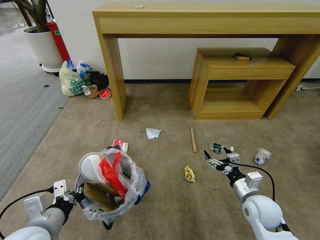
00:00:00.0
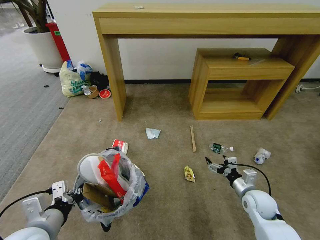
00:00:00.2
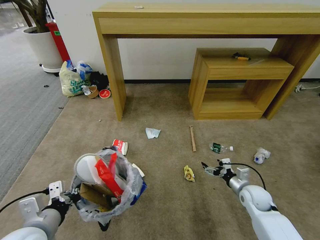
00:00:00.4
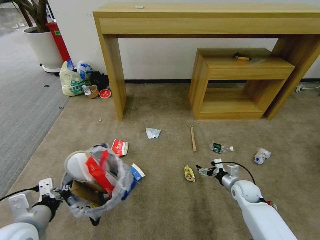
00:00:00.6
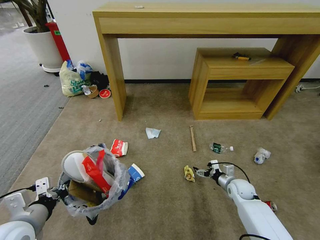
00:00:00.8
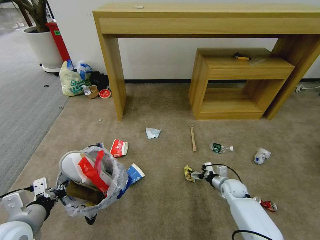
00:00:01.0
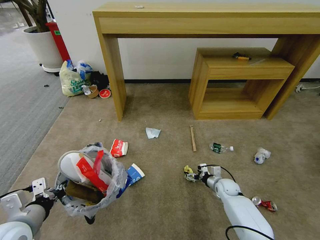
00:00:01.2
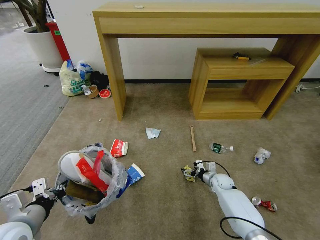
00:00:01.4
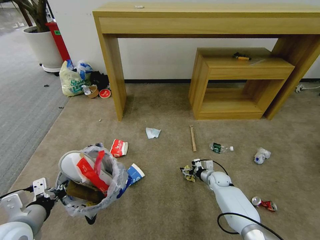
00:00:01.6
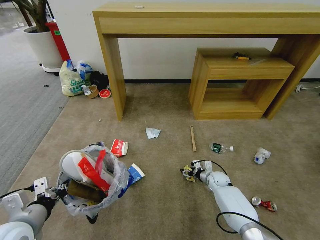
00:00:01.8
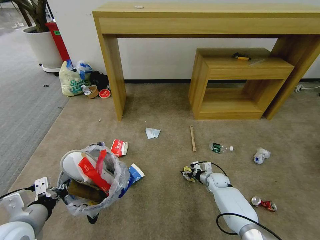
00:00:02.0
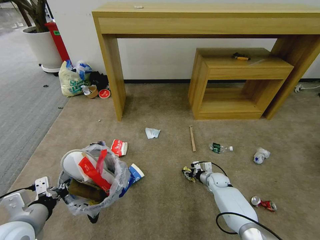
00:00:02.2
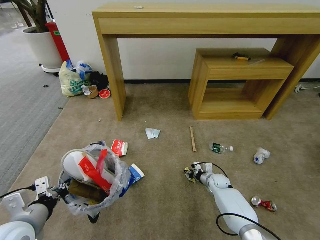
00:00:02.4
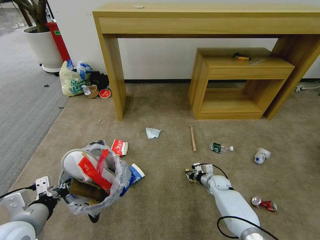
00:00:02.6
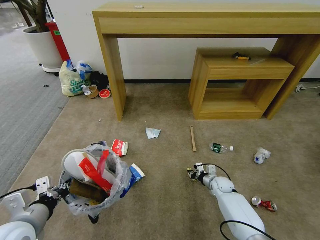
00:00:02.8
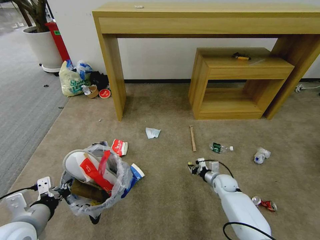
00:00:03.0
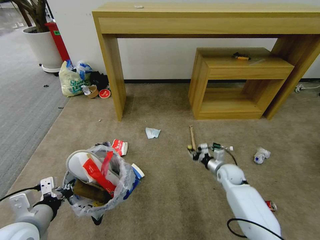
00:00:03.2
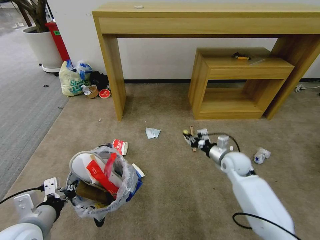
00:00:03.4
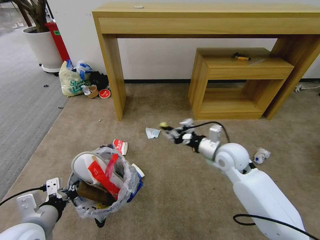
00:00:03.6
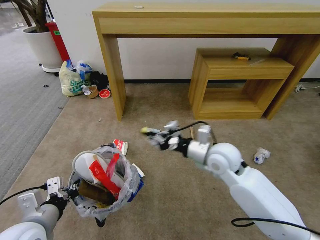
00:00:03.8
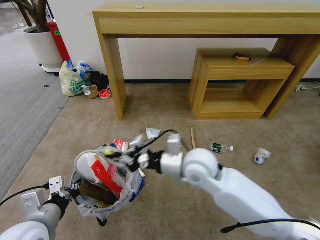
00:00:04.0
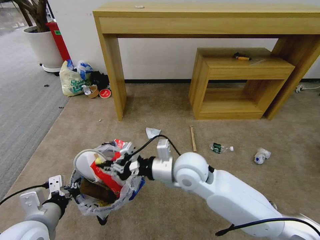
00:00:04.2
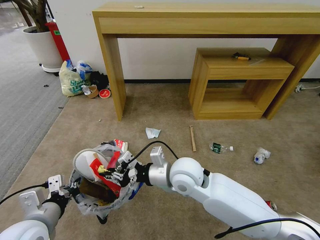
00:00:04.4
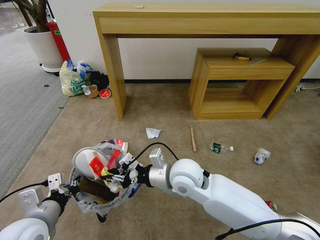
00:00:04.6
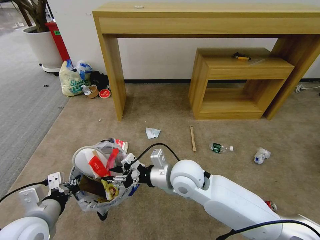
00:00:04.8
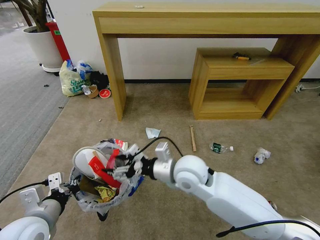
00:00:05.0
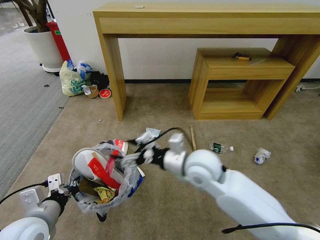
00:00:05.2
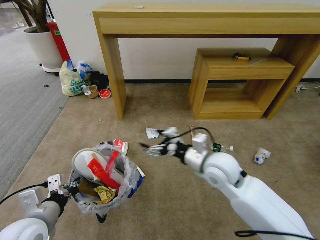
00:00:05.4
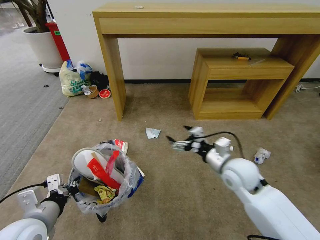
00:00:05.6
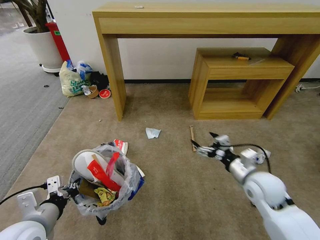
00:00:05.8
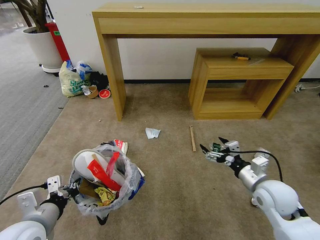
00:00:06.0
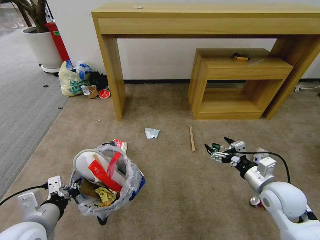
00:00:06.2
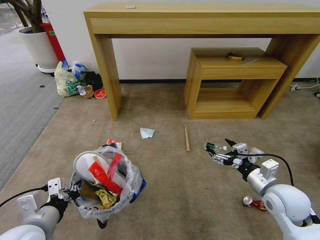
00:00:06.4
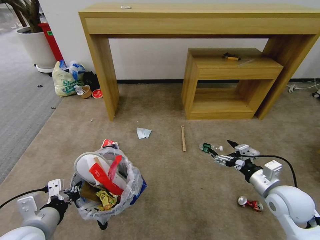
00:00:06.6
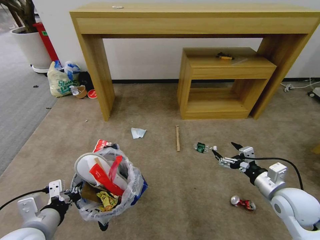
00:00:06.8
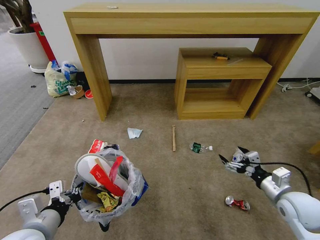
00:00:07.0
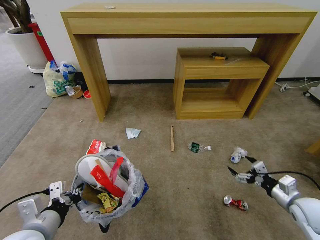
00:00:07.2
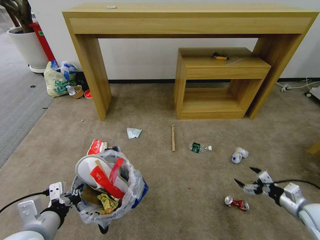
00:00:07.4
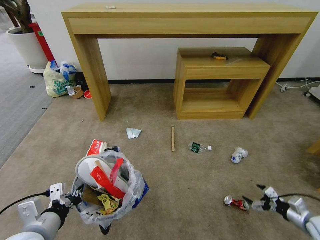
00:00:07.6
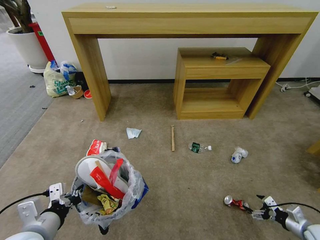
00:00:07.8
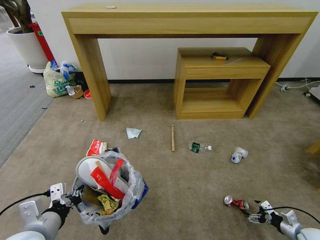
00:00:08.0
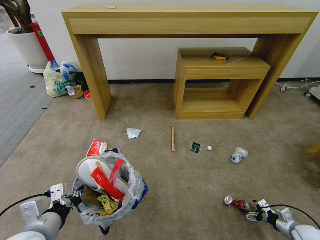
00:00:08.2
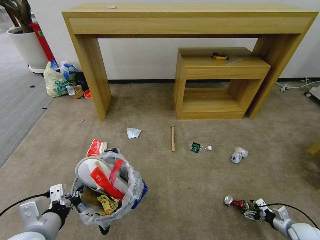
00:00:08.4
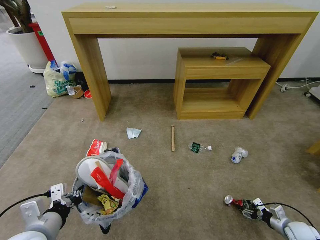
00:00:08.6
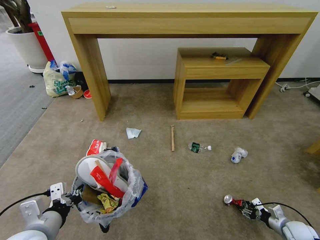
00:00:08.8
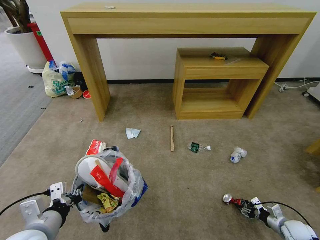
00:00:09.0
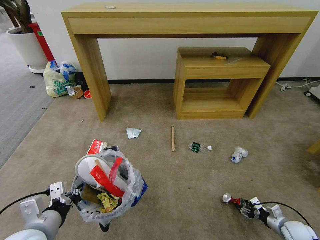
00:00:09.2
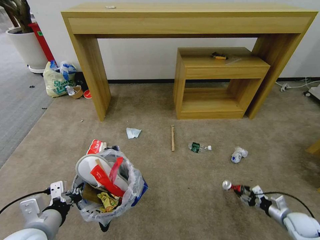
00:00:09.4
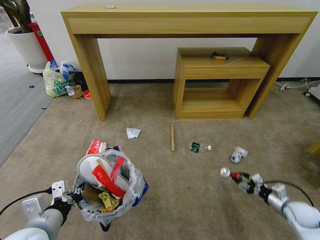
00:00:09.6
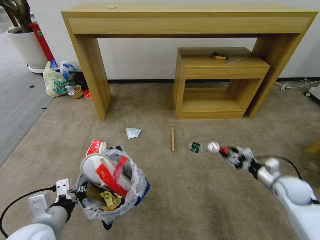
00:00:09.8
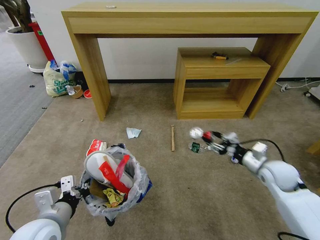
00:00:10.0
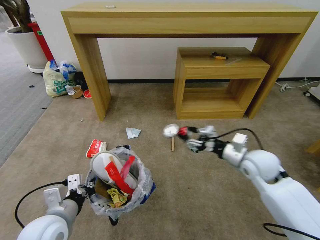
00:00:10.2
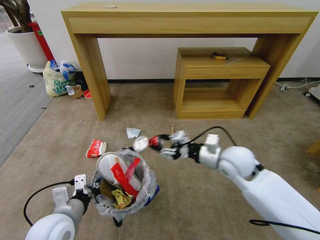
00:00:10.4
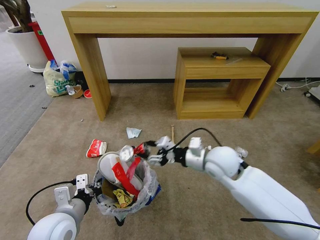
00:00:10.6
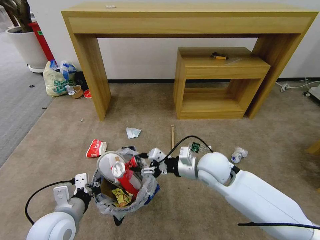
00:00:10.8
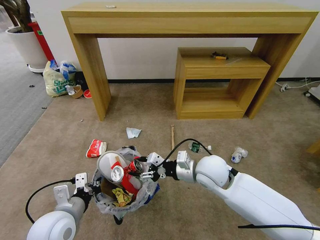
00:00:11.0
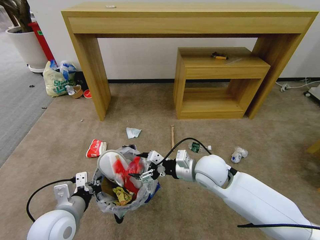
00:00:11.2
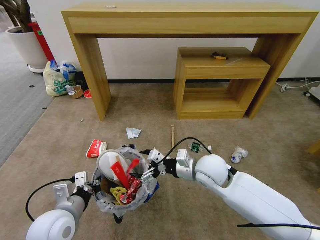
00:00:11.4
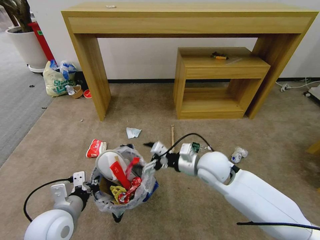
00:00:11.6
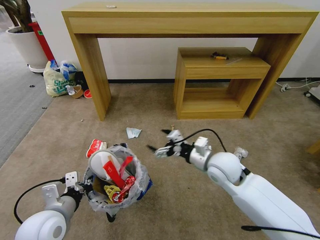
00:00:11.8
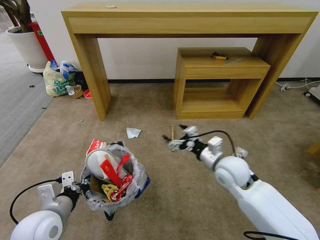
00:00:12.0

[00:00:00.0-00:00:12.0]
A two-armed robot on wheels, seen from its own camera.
Task of the whole recording: Pick up the trash bin and place the garbage on the floor into it.
00:00:00.0 to 00:00:01.6: The left gripper goes approximately 5 cm to the left. Meanwhile the right gripper moves forward and downward, approximately 25 cm.
00:00:01.6 to 00:00:03.0: The right gripper closes.
00:00:03.0 to 00:00:04.4: The right gripper moves upward and to the left, roughly 35 cm.
00:00:04.4 to 00:00:06.0: The right gripper goes approximately 25 cm to the right, and opens its fingers.
00:00:06.0 to 00:00:07.6: The right gripper moves to the right and downward, approximately 25 cm.
00:00:07.6 to 00:00:09.0: The right gripper shifts about 10 cm downward, and closes up.
00:00:09.0 to 00:00:10.4: The right gripper is displaced to the left, upward and forward by some 50 cm, while the left gripper moves approximately 5 cm.
00:00:10.4 to 00:00:12.0: The right gripper goes to the left and returns, about 5 cm each way, and opens up.

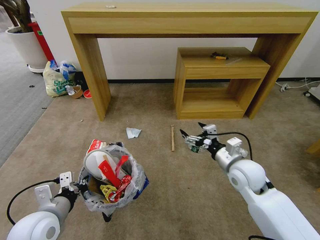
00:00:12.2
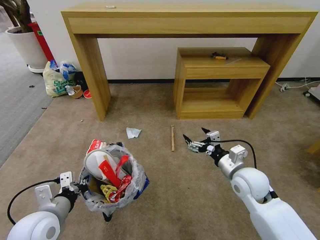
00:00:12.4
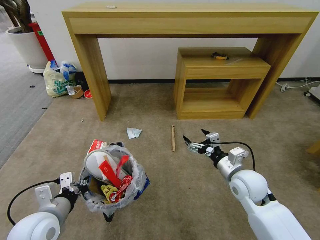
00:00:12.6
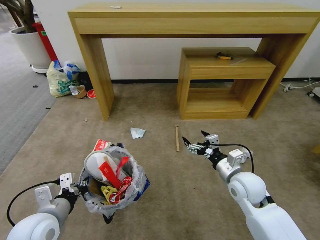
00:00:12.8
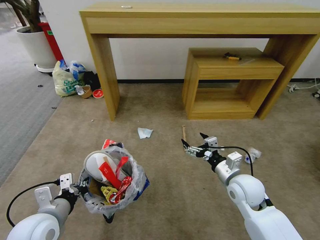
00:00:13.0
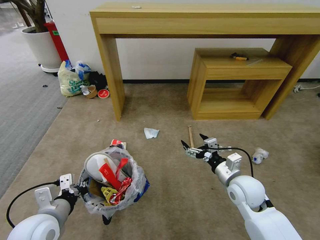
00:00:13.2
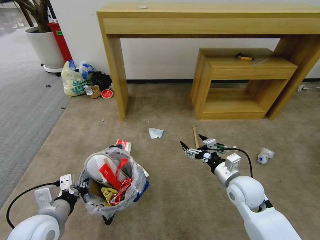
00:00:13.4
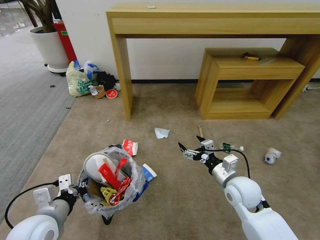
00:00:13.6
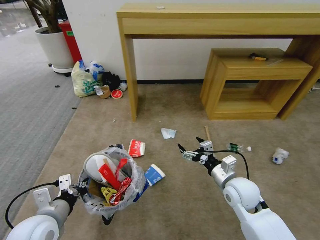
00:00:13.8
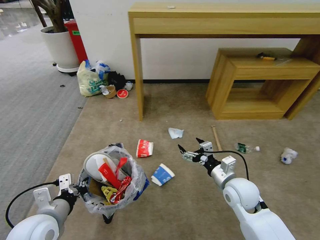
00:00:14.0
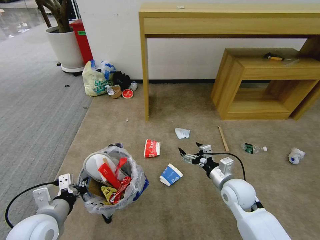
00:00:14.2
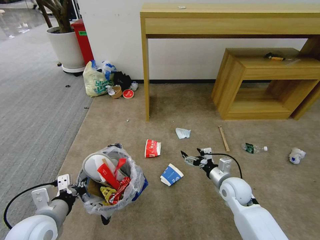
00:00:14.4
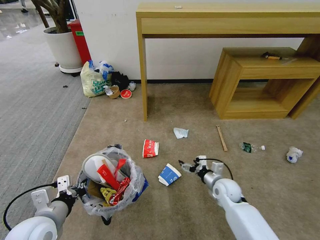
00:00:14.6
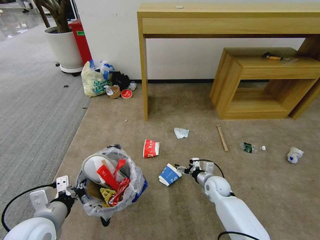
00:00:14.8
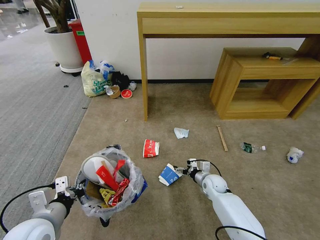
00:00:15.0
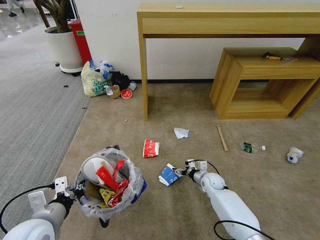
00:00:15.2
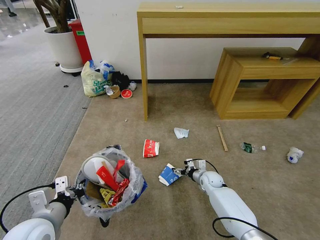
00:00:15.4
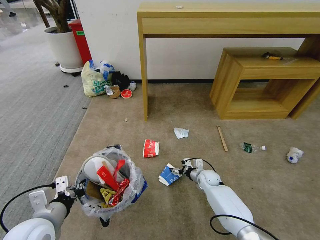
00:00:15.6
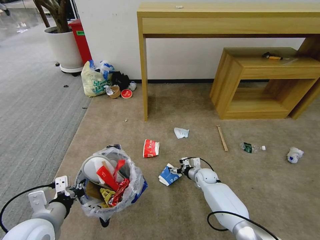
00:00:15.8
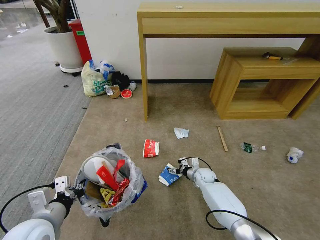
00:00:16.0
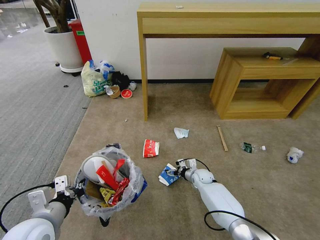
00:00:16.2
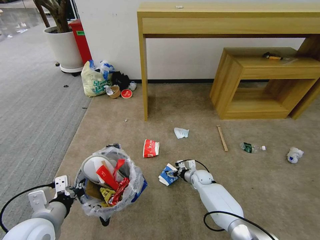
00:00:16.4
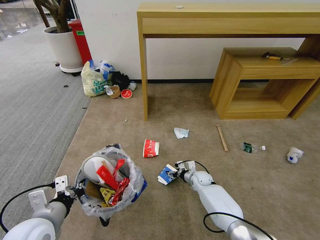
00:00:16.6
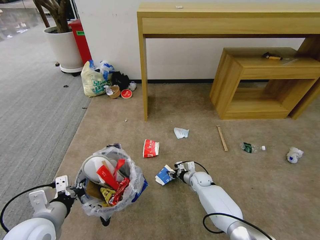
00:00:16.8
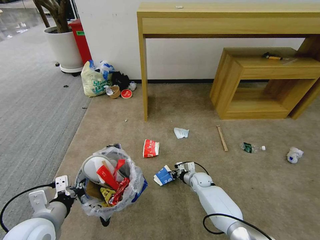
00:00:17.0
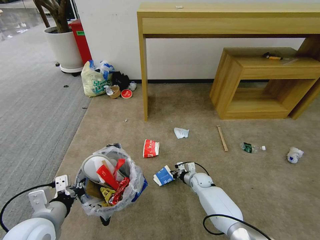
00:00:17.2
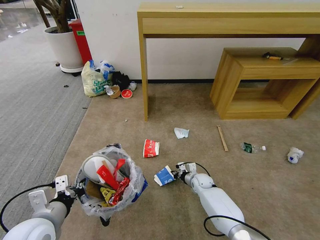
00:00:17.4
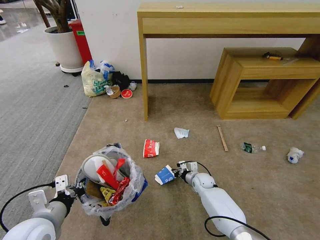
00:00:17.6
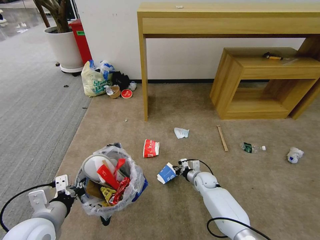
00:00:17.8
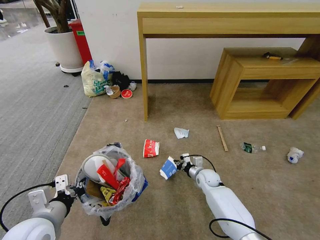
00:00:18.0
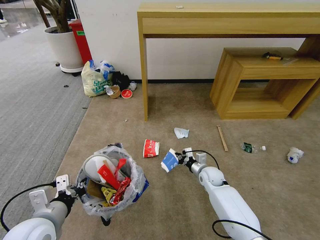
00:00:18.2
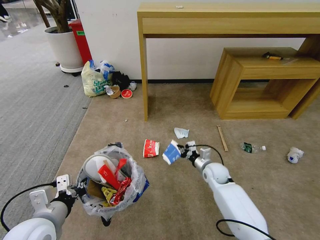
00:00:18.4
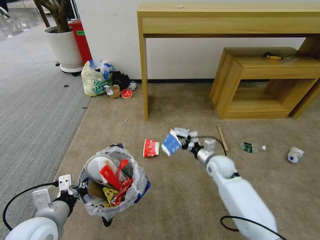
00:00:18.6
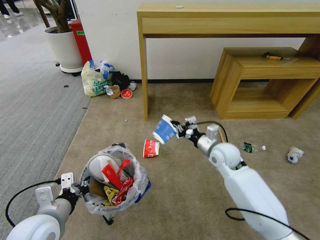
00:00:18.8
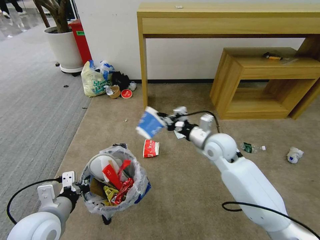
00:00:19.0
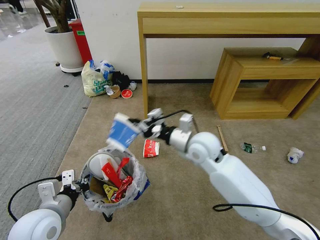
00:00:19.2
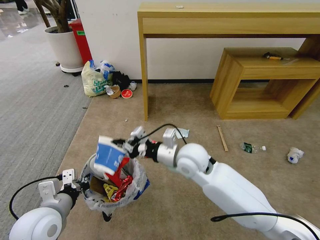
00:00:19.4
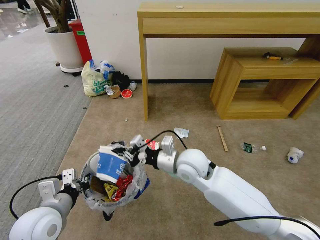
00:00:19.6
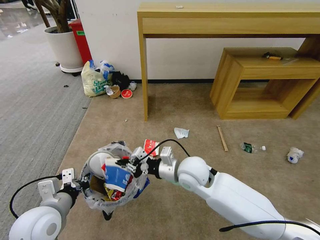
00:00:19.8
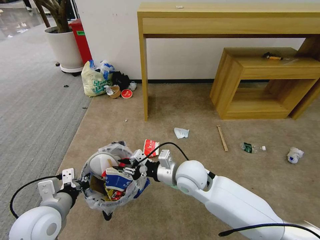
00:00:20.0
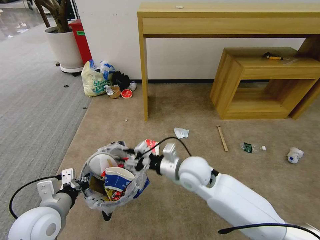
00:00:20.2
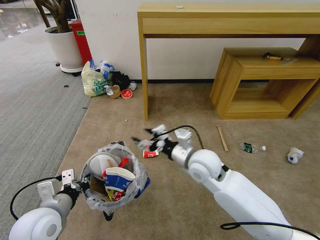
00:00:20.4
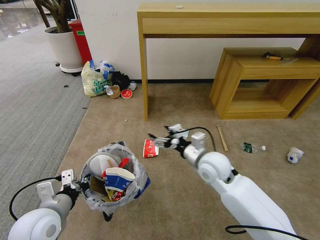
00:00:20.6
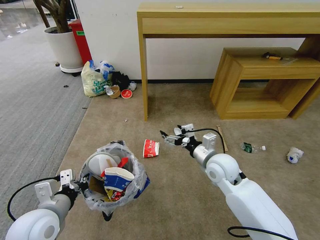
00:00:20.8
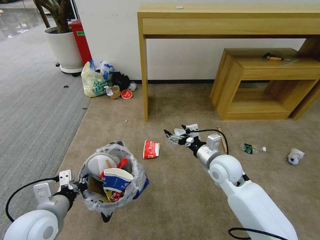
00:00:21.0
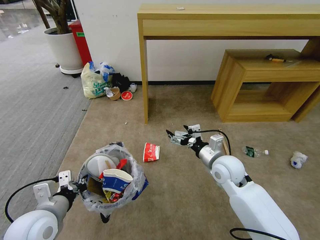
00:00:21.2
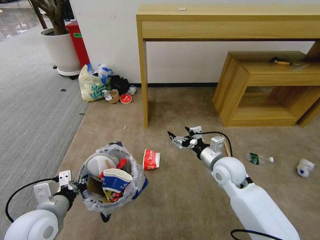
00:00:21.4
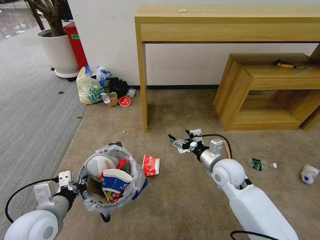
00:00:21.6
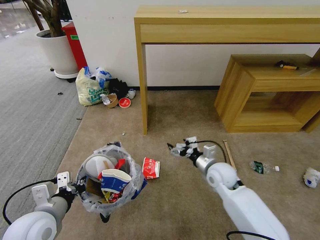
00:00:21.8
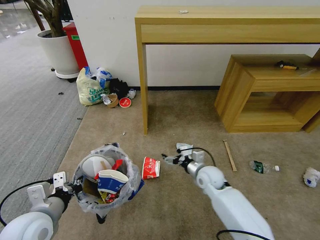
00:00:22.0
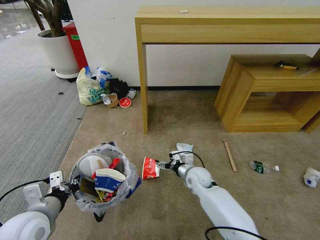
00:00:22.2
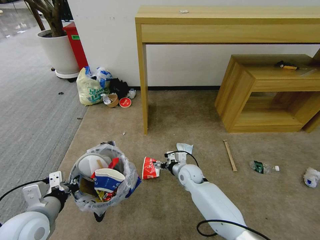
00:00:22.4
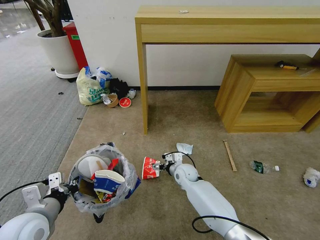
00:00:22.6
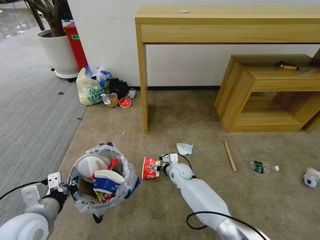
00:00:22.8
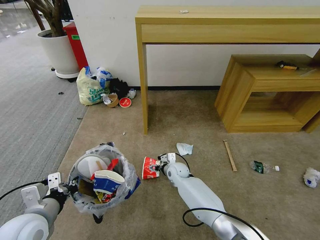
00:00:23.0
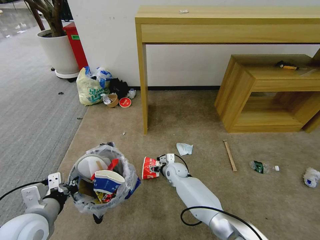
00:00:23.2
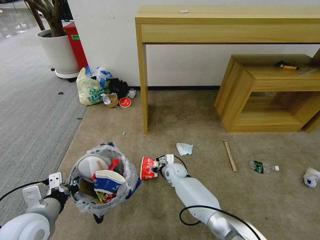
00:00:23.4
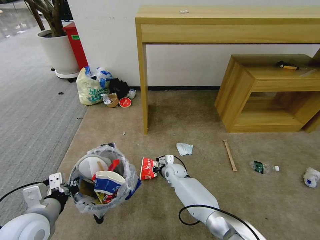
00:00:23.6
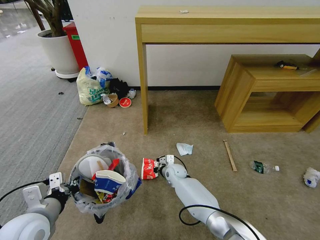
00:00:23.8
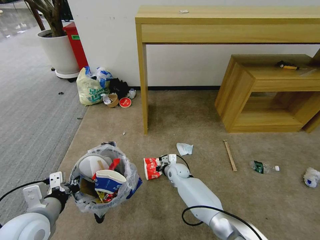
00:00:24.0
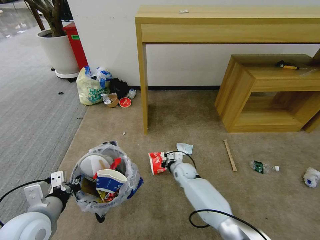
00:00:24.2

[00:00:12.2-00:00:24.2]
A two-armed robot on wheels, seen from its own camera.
Task of the whole recording: Pick up the trash bin and place the garbage on the floor into it.
00:00:12.2 to 00:00:13.8: The right gripper shifts by approximately 5 cm.
00:00:13.8 to 00:00:15.2: The right gripper heads downward and forward, covering some 20 cm.
00:00:15.2 to 00:00:16.6: The right gripper shifts by some 5 cm.
00:00:16.6 to 00:00:18.2: The right gripper travels upward by some 10 cm, and closes its fingers.
00:00:18.2 to 00:00:19.8: The right gripper goes about 25 cm upward, to the left and backward.
00:00:19.8 to 00:00:21.2: The right gripper is displaced to the right by approximately 10 cm, and opens its fingers.
00:00:21.2 to 00:00:22.6: The right gripper moves downward, to the left and forward, roughly 20 cm.
00:00:22.6 to 00:00:24.2: The right gripper closes up.
